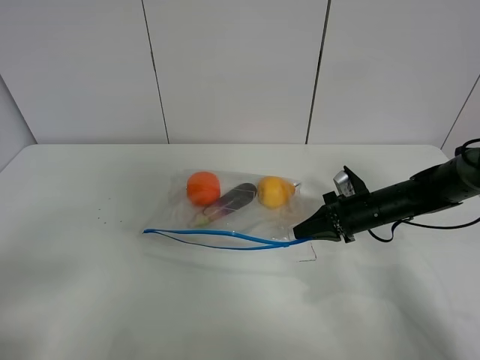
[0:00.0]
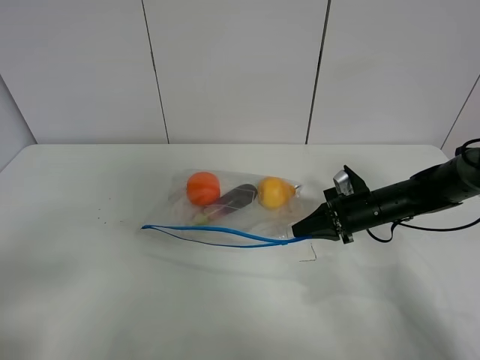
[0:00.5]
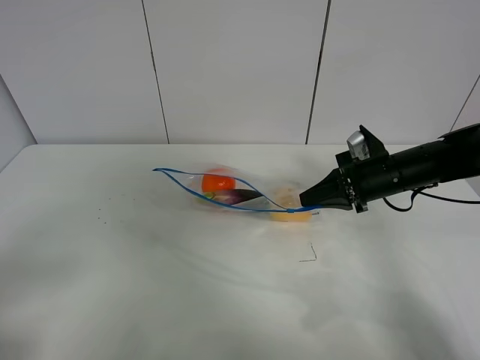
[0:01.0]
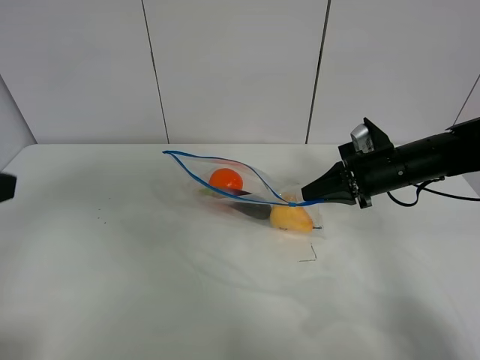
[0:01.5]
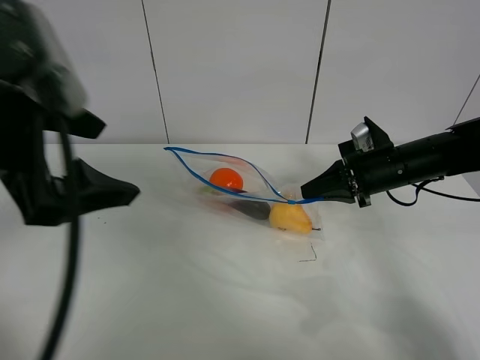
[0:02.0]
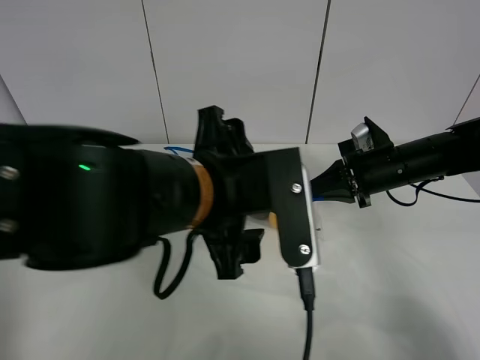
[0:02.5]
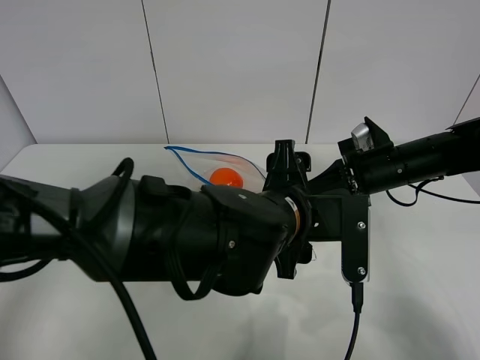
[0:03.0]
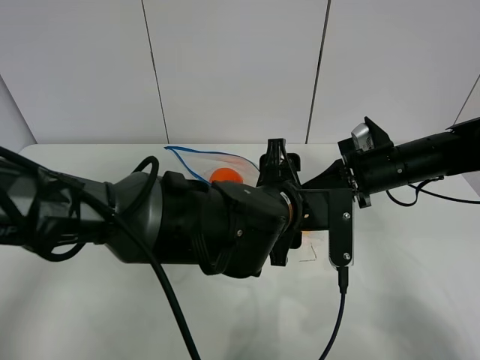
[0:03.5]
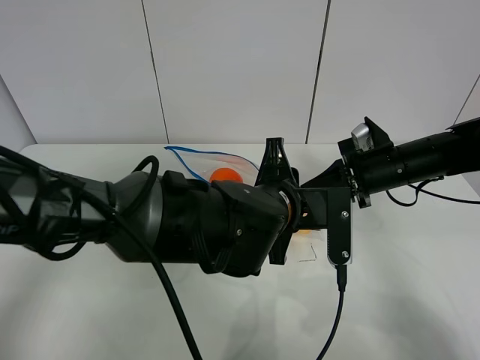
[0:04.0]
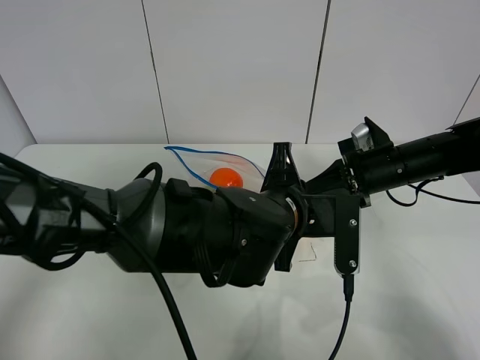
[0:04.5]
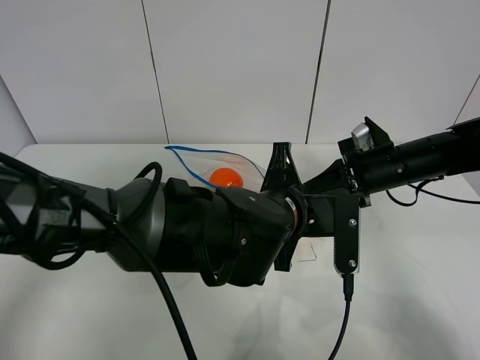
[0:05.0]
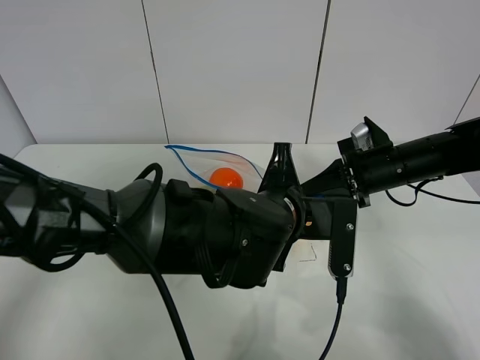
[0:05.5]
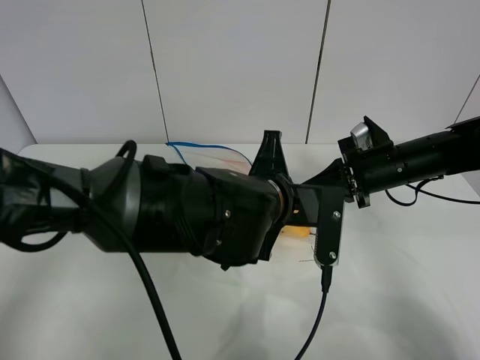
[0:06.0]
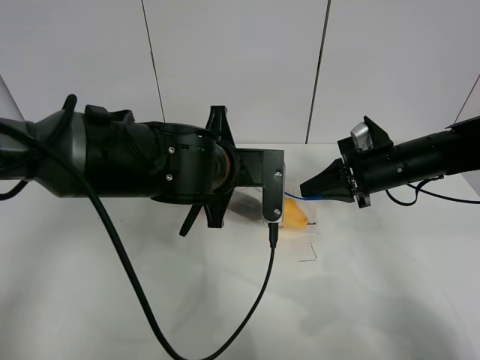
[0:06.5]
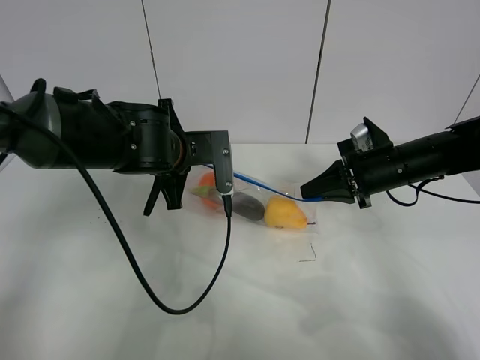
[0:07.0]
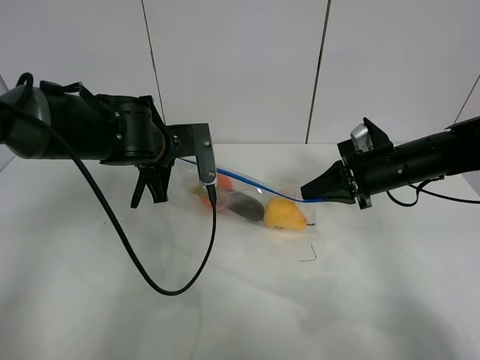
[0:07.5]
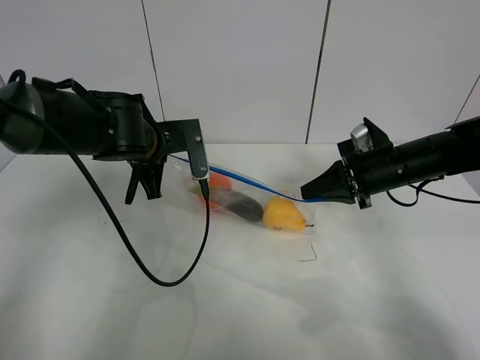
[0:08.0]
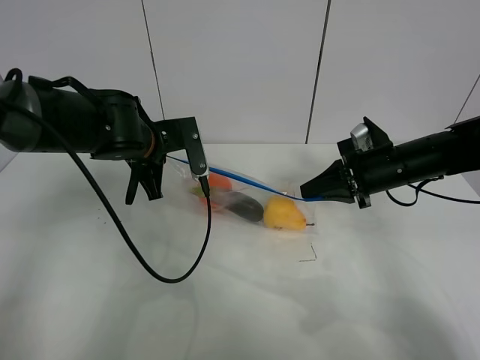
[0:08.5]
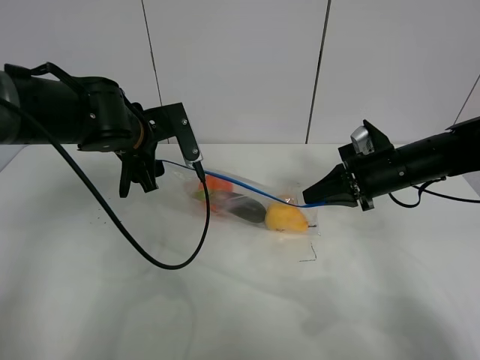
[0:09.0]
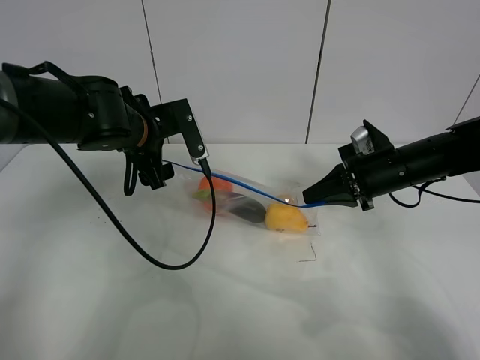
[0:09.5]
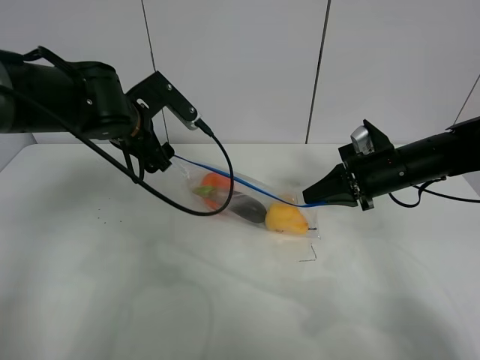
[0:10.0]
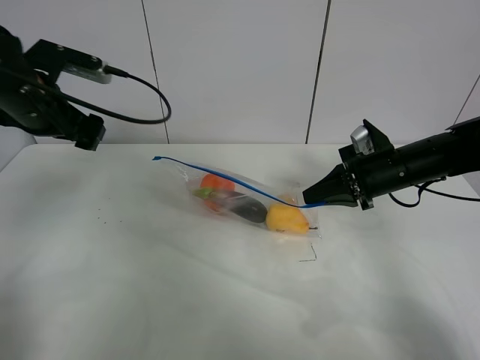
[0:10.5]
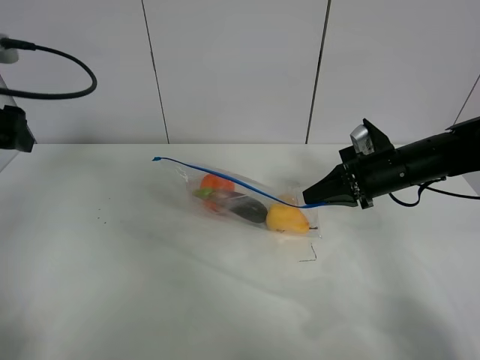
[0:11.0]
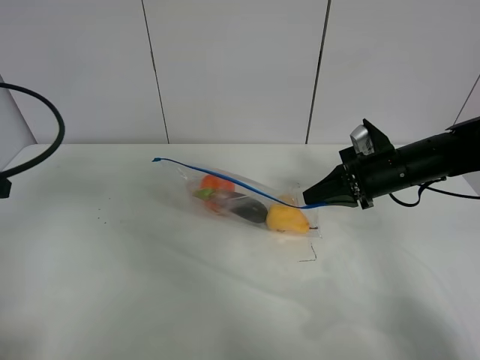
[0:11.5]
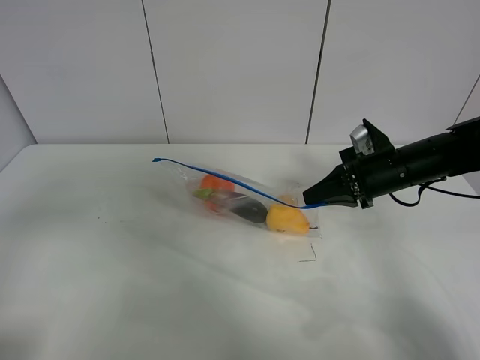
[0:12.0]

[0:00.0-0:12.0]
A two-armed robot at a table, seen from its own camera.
Step, 1.5 to 8.5 s: Pull the fruit bag with left gripper.
0.0 to 2.0 s: The right gripper moves upward, about 10 cm, while the left gripper moves forward, to the right and upward, approximately 25 cm.
2.0 to 4.0 s: The left gripper heads to the right and downward, covering approximately 25 cm, and closes up.
4.0 to 6.0 s: The left gripper closes its fingers.
6.0 to 8.0 s: The left gripper goes approximately 20 cm to the left and forward.
8.0 to 10.0 s: The left gripper opens its fingers.
10.0 to 12.0 s: The left gripper travels backward and to the left by approximately 30 cm.

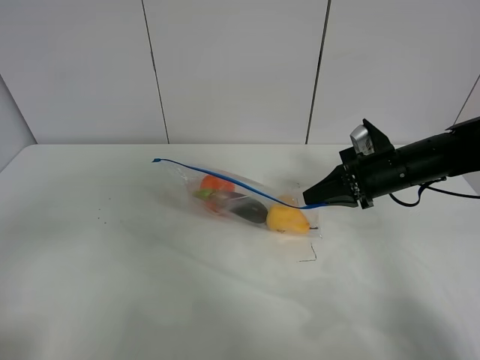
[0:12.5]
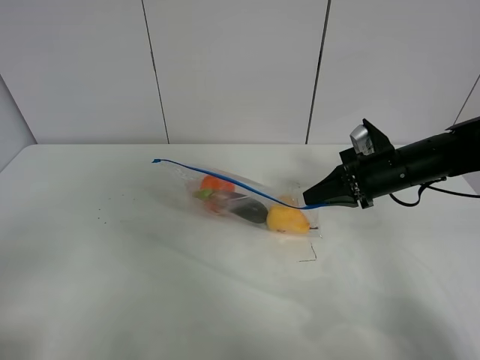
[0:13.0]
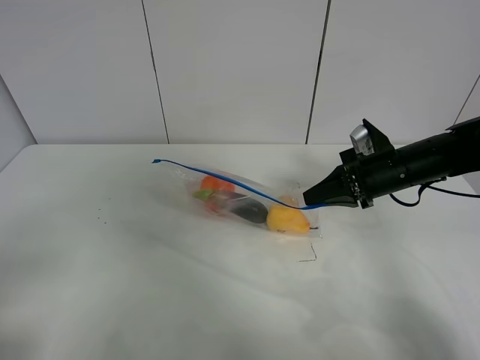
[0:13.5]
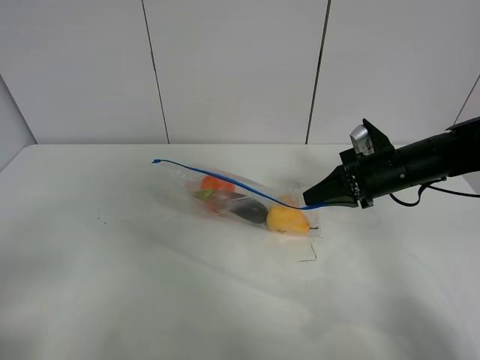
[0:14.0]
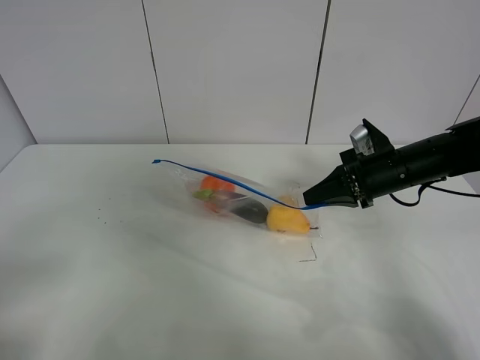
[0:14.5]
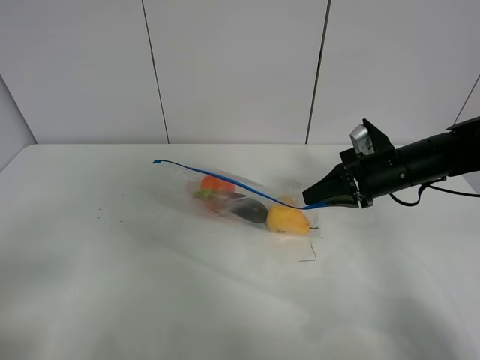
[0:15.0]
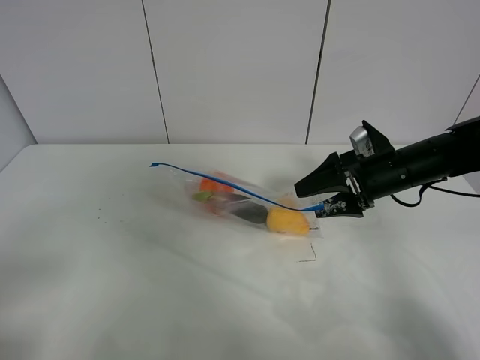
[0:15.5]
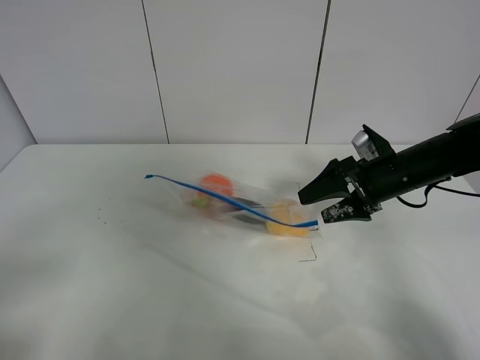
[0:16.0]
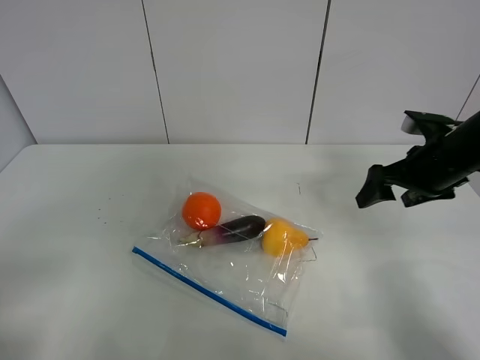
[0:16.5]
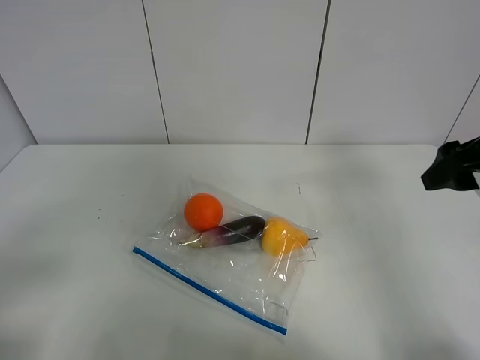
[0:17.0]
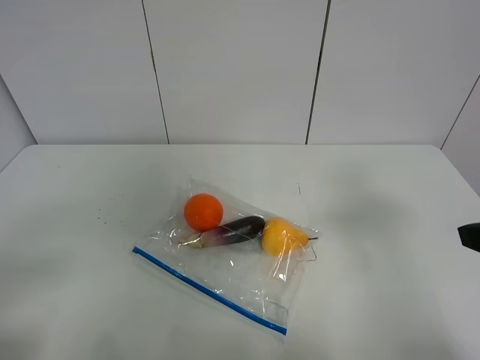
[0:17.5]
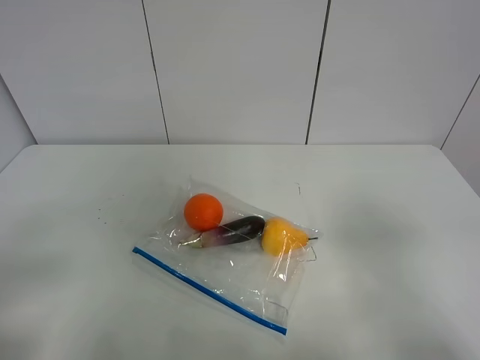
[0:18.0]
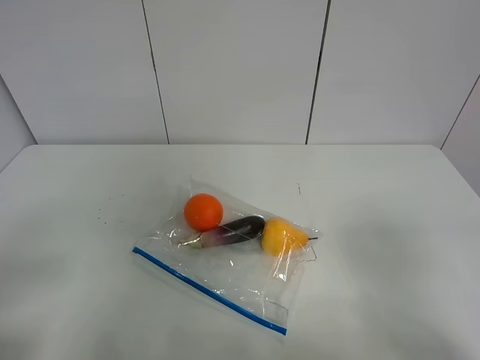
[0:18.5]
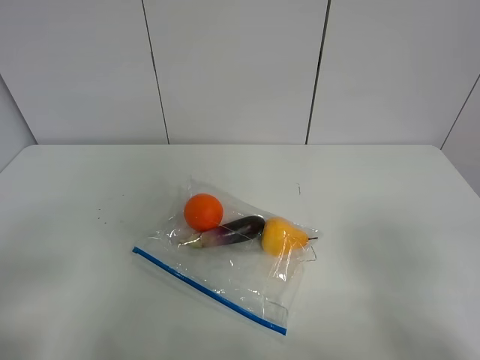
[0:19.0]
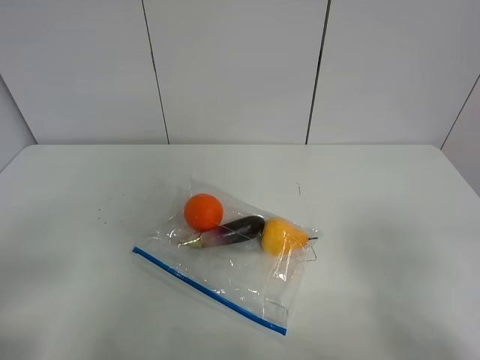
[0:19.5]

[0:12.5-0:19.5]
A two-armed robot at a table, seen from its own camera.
14.5 to 16.0 s: The right gripper opens its fingers.
16.0 to 17.5 s: The right gripper travels backward and upward by approximately 25 cm.
17.5 to 19.5 s: The right gripper is displaced backward by about 10 cm.

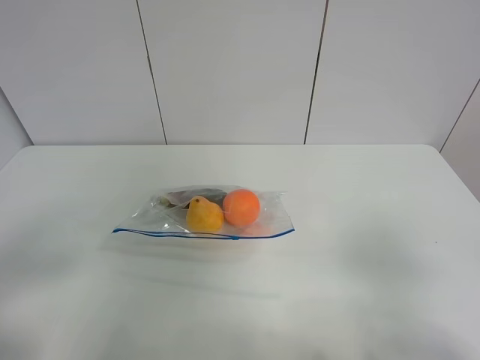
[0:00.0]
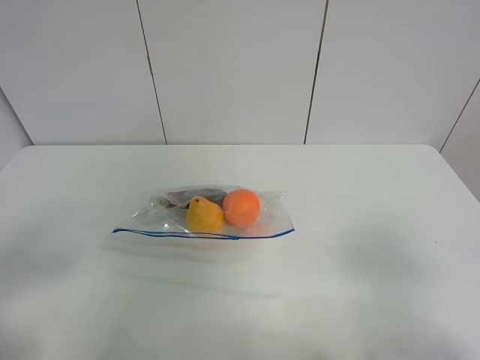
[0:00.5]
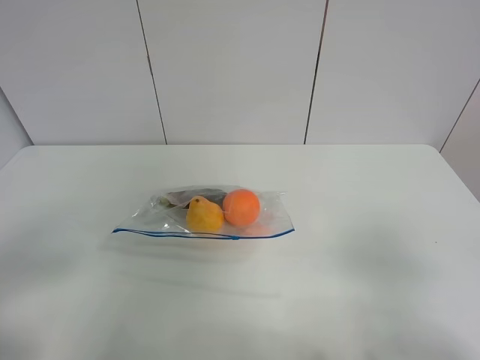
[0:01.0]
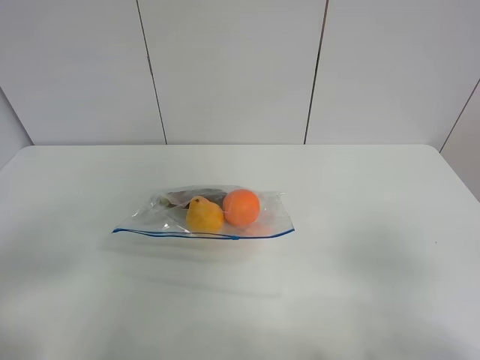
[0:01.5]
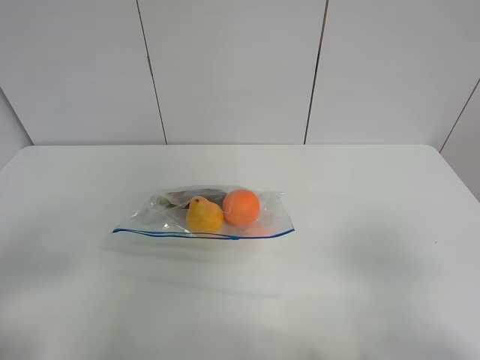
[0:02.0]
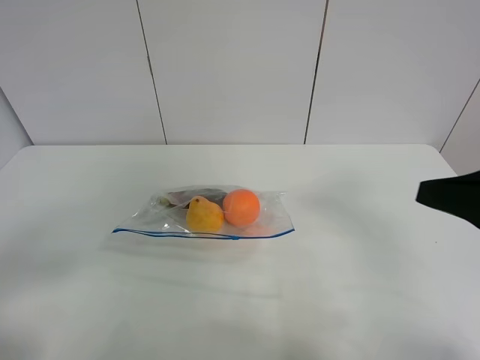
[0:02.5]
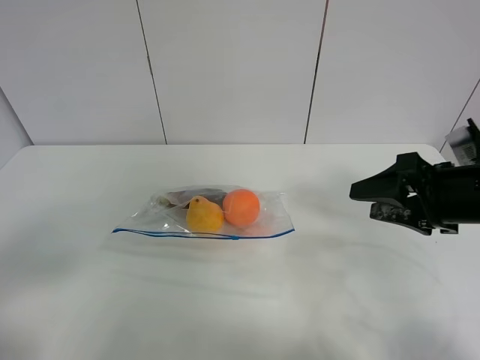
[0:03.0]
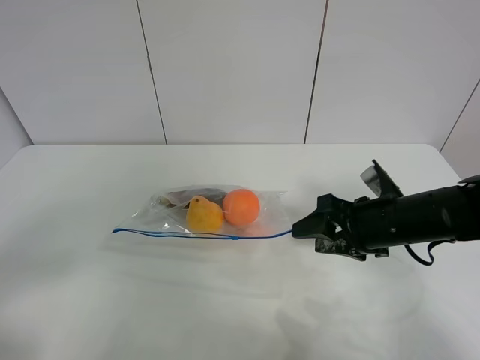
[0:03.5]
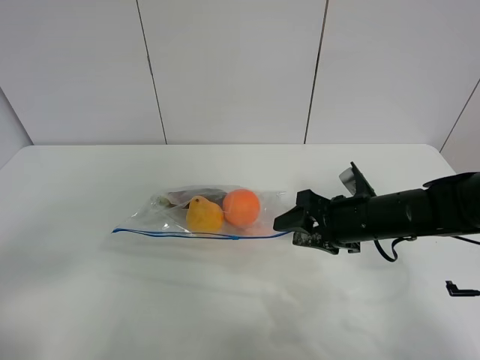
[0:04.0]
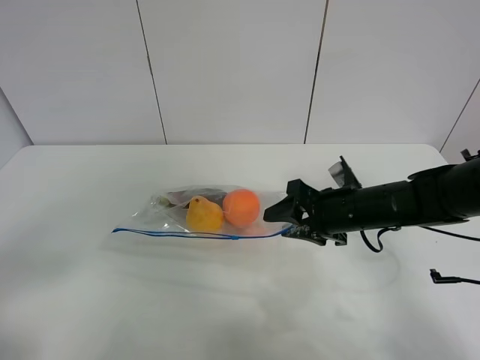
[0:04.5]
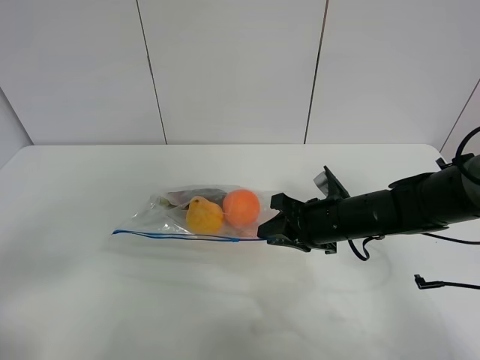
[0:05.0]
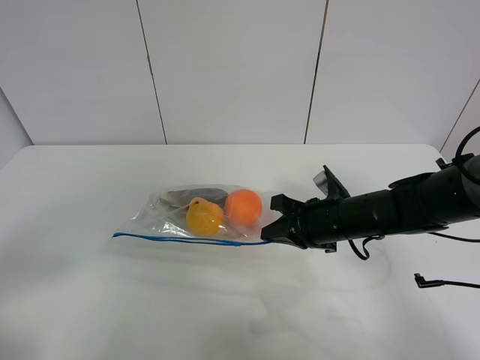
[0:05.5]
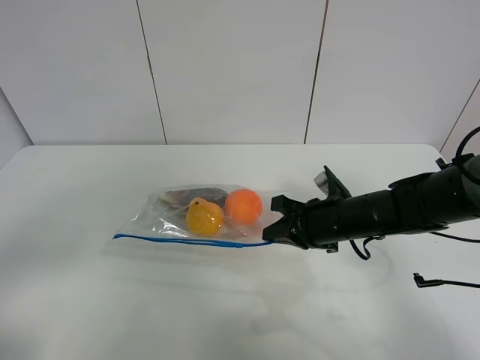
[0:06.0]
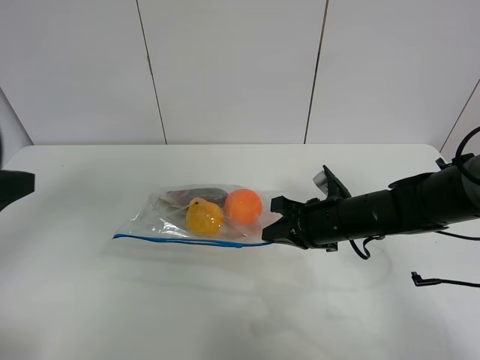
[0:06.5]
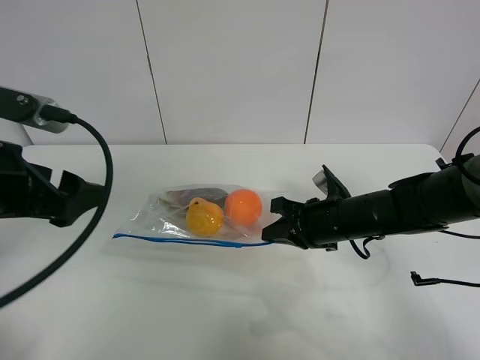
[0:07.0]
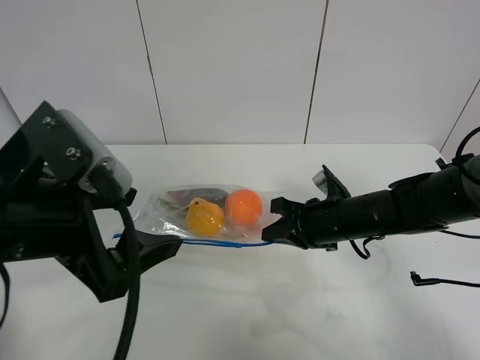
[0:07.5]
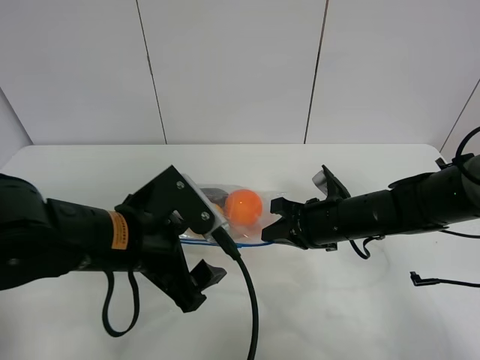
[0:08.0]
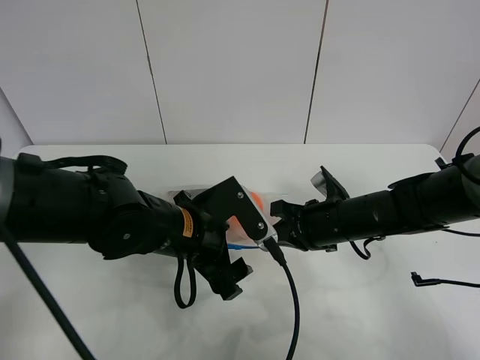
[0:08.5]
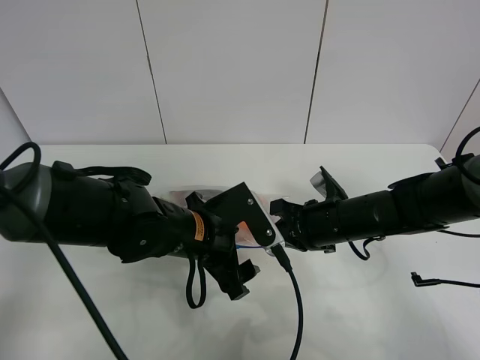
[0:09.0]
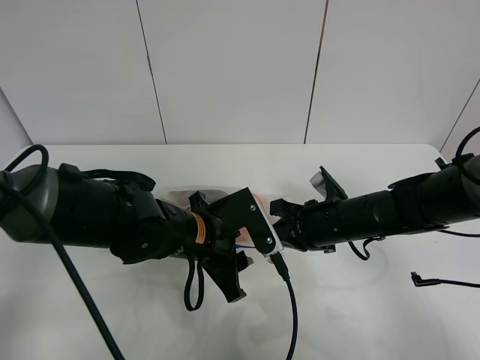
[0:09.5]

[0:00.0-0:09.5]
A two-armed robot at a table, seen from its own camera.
Step, 0.0 to 5.0 s: Grasp the fruit bag with right gripper.
0.0 to 2.0 s: The two grippers keep their place.
2.0 to 4.0 s: The right gripper travels forward and downward by approximately 30 cm.
4.0 to 5.5 s: The right gripper closes up.
5.5 to 7.5 s: The left gripper travels to the right and forward by approximately 20 cm.
7.5 to 9.5 s: The left gripper travels downward, to the right and forward by roughly 20 cm, and closes its fingers.
